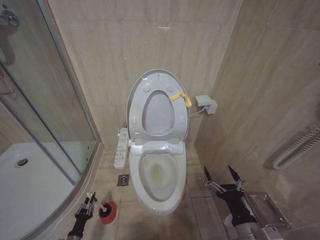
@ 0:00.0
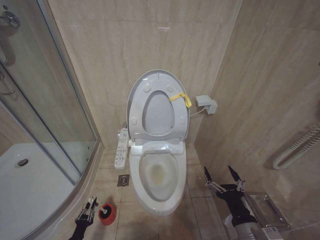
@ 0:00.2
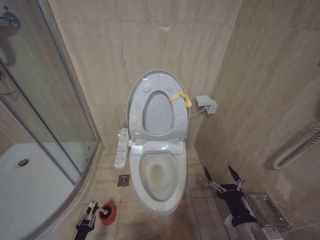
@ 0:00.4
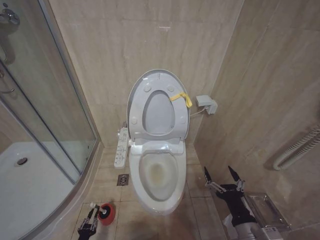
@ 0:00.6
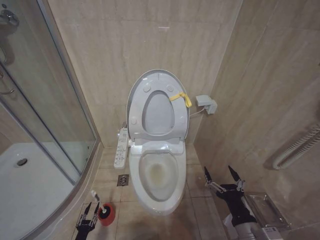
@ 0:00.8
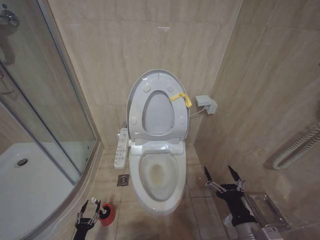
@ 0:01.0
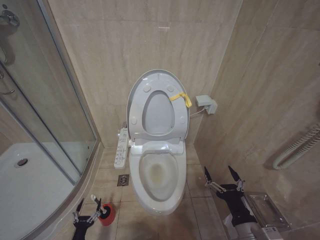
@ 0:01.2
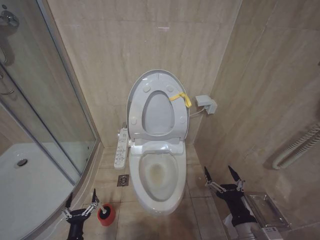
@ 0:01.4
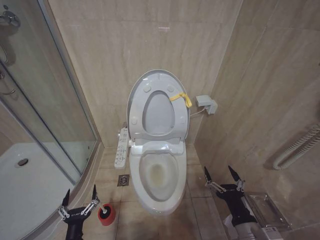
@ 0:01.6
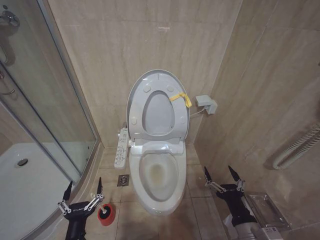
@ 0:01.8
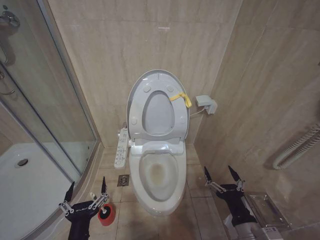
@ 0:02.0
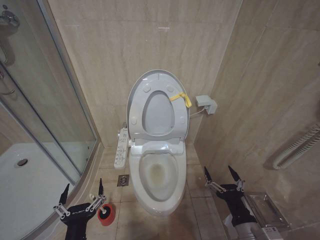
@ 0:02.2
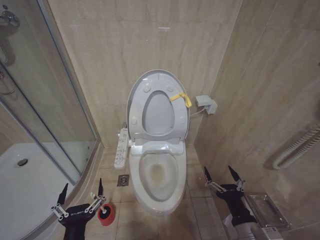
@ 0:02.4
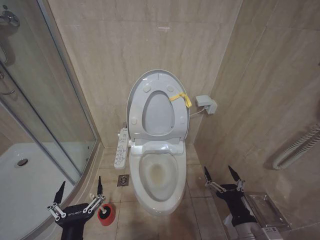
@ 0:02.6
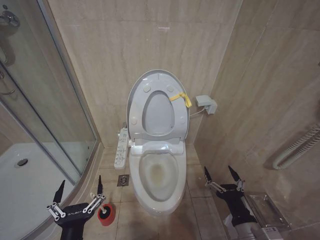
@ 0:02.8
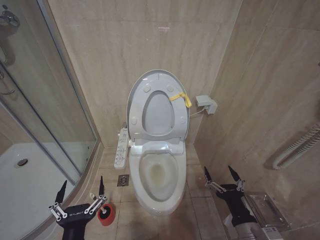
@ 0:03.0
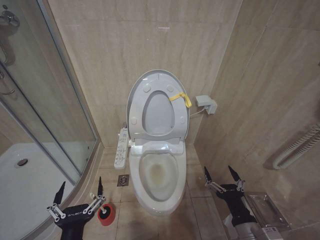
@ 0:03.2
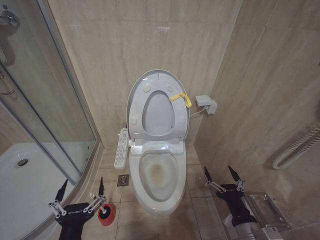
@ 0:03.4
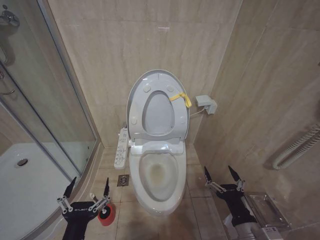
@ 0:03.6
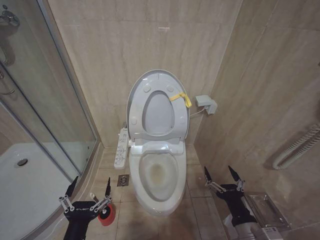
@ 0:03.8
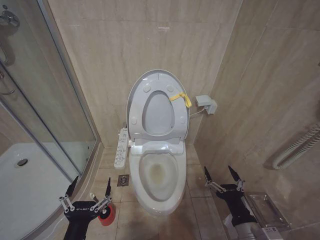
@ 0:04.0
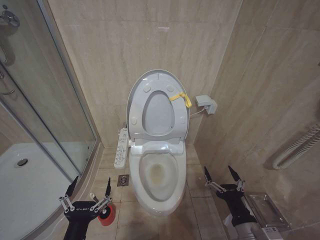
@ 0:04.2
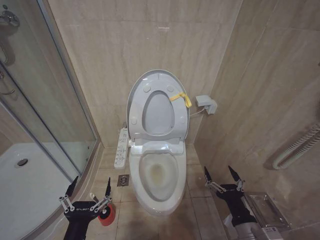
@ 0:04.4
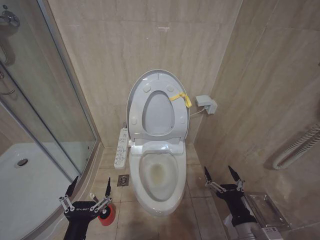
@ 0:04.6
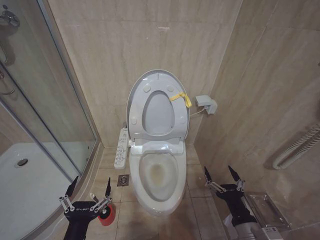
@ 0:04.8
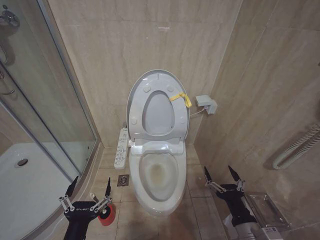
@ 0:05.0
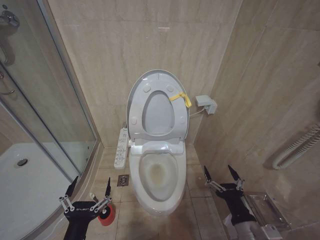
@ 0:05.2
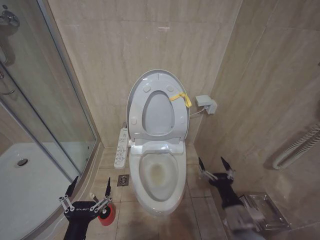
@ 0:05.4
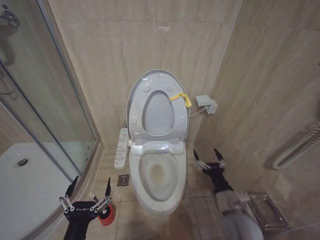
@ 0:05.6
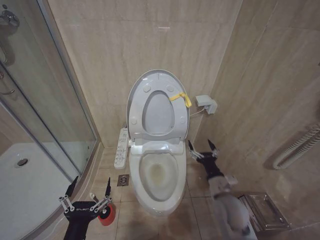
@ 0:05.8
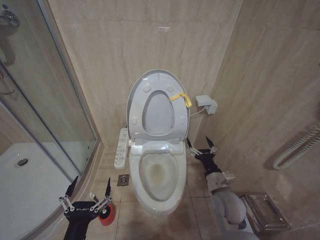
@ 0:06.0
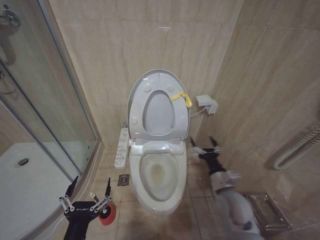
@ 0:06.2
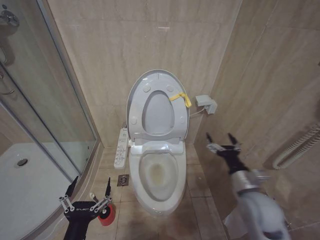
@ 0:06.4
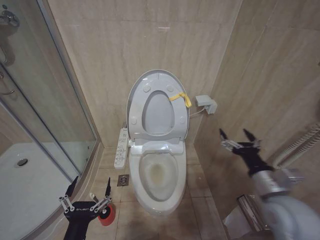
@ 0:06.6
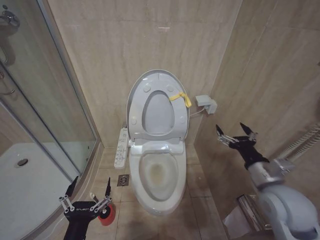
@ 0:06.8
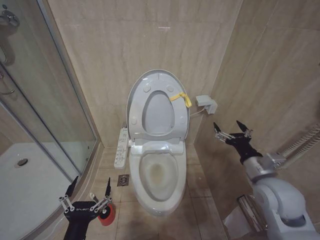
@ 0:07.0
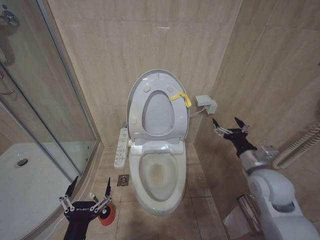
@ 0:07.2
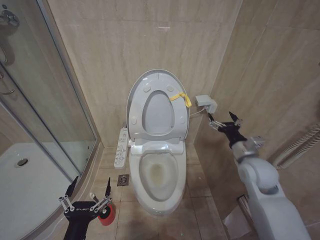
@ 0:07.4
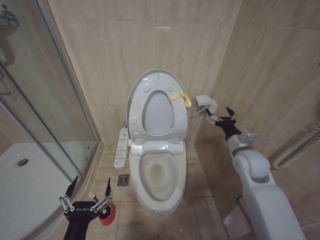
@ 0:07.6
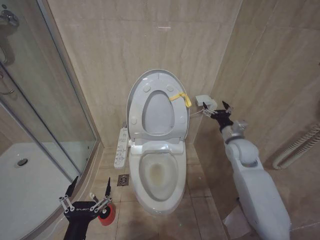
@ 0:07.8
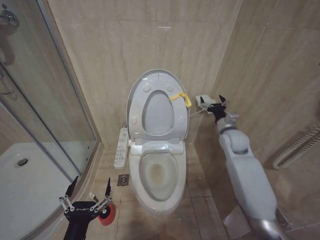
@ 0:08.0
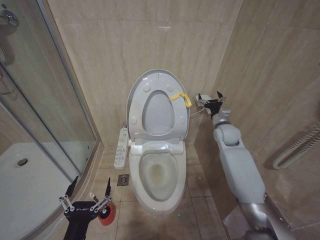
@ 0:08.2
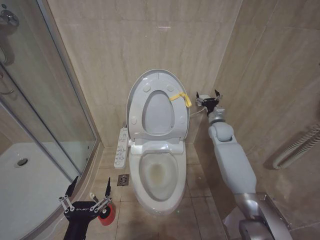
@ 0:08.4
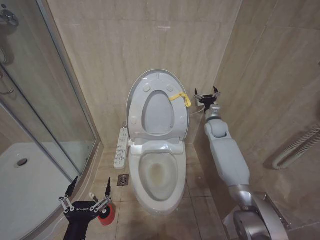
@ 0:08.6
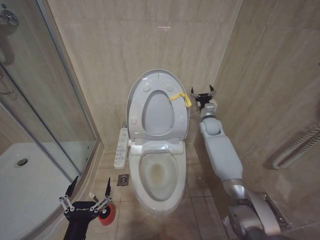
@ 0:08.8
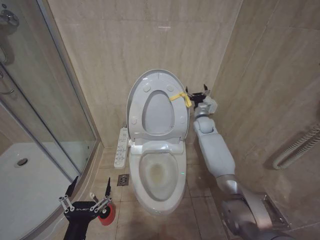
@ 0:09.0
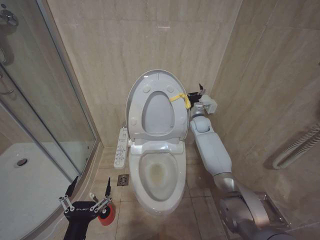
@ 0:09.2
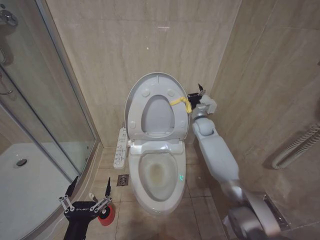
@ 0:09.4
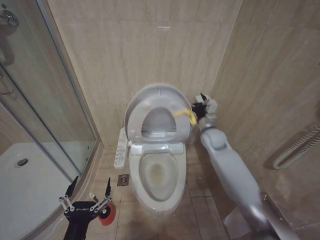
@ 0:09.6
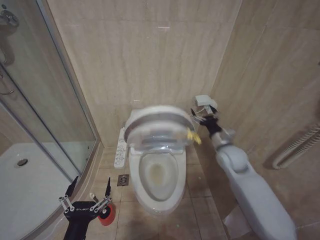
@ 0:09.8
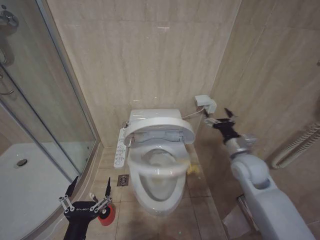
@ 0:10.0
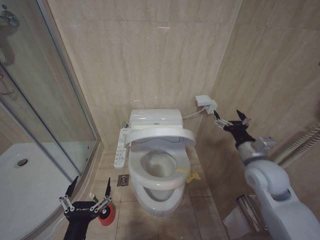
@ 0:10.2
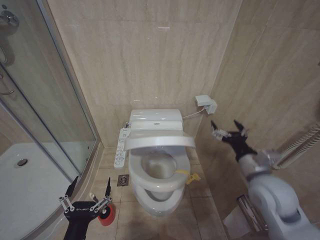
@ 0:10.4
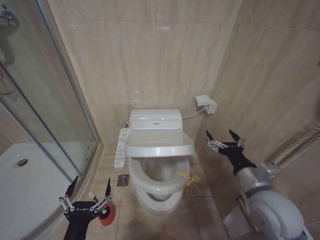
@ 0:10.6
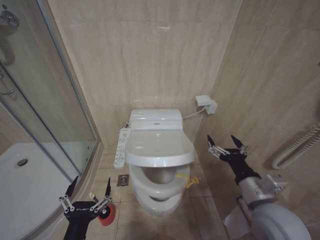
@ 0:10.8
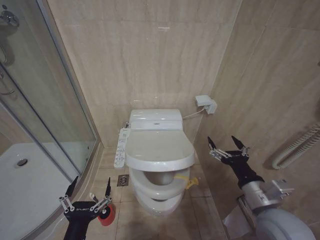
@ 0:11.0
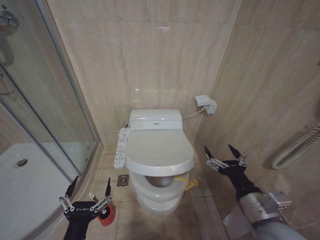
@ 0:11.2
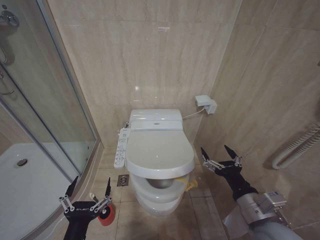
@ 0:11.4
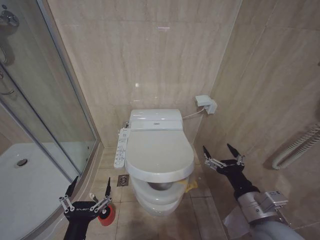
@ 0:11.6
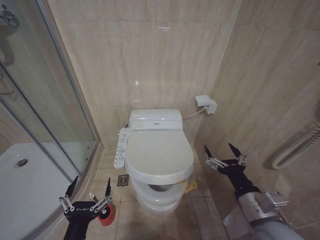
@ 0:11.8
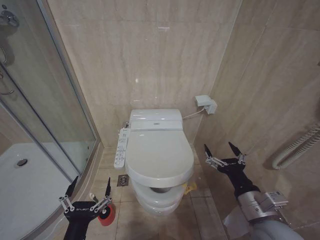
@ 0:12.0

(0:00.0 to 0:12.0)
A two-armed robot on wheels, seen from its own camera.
Task of the whole recording: Open the toilet lid, clean the toilet bowl with a toilet brush, close the toilet lid, and flush.
0:00.0 - 0:01.6: The left gripper is displaced upward, to the right and backward by roughly 20 cm, and opens its fingers.
0:01.6 - 0:03.0: The left gripper goes approximately 20 cm upward and to the right.
0:03.0 - 0:04.4: The grippers make only small movements.
0:04.4 - 0:06.0: The right gripper goes approximately 15 cm forward.
0:06.0 - 0:07.6: The right gripper shifts roughly 15 cm upward, to the right and forward.
0:07.6 - 0:09.0: The right gripper is displaced forward by about 25 cm.
0:09.0 - 0:10.4: The right gripper heads backward, covering roughly 30 cm.
0:10.4 - 0:12.0: The right gripper heads backward, covering approximately 10 cm.

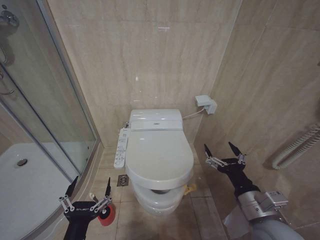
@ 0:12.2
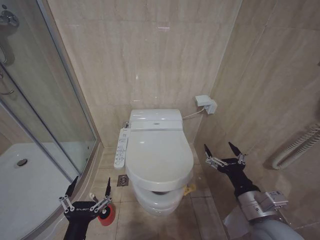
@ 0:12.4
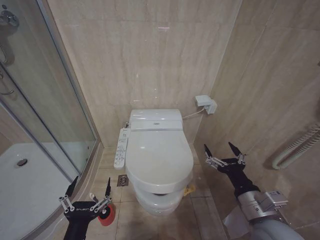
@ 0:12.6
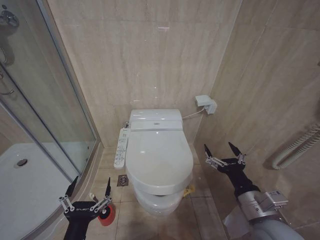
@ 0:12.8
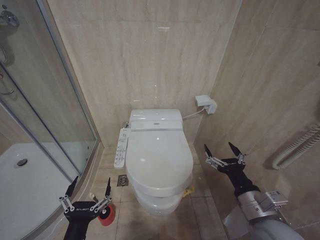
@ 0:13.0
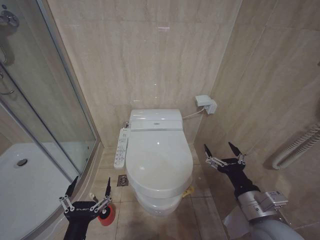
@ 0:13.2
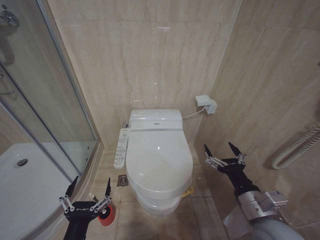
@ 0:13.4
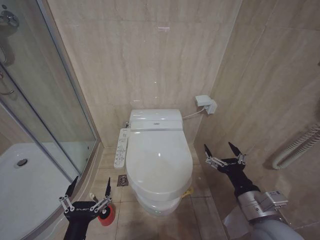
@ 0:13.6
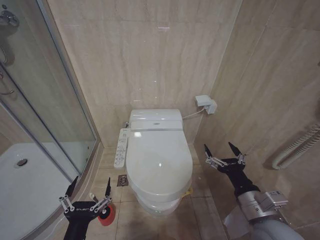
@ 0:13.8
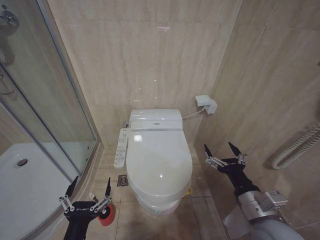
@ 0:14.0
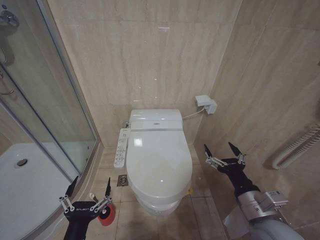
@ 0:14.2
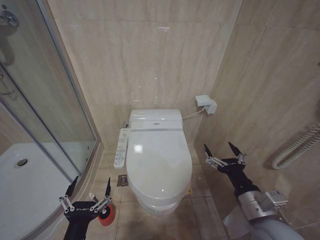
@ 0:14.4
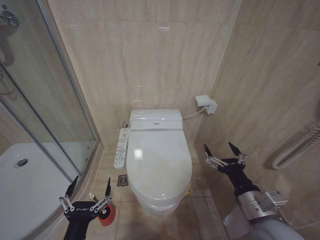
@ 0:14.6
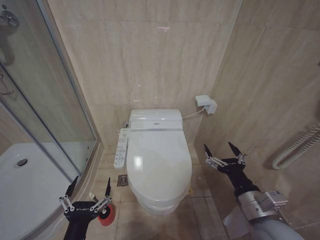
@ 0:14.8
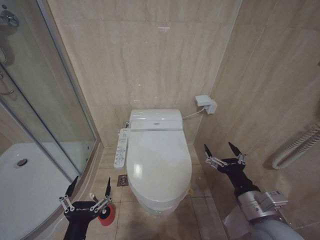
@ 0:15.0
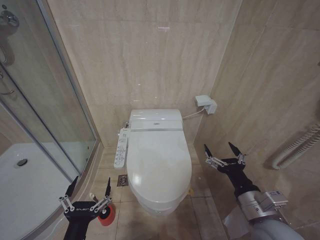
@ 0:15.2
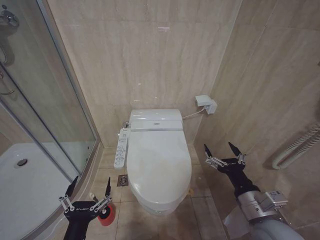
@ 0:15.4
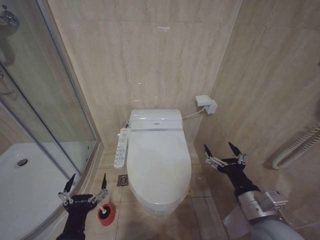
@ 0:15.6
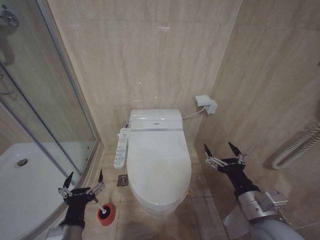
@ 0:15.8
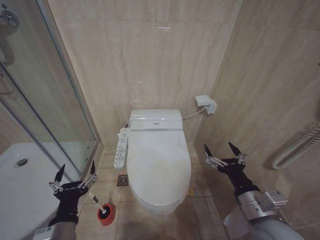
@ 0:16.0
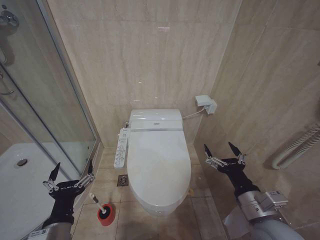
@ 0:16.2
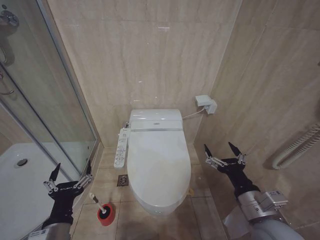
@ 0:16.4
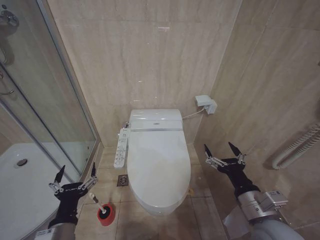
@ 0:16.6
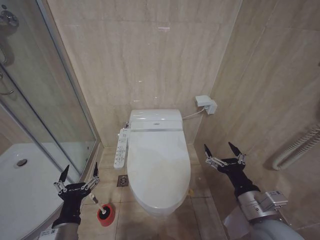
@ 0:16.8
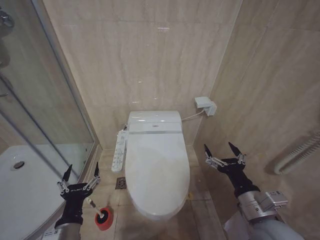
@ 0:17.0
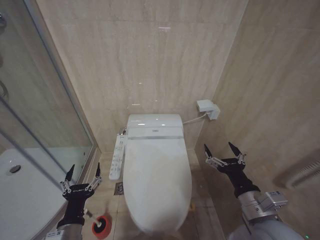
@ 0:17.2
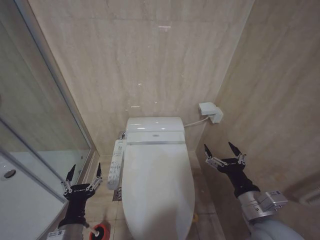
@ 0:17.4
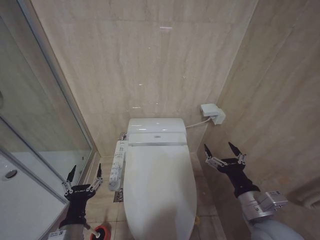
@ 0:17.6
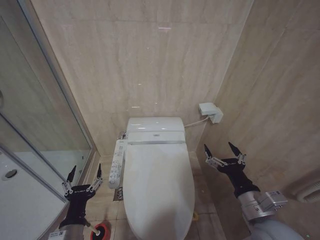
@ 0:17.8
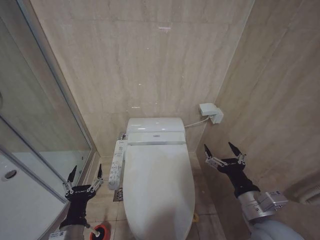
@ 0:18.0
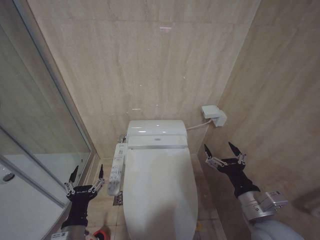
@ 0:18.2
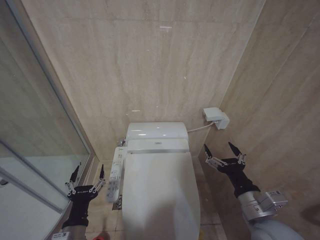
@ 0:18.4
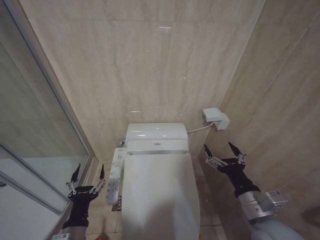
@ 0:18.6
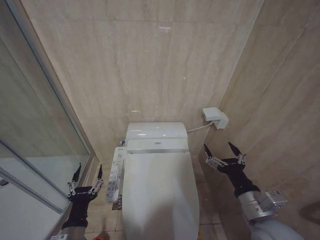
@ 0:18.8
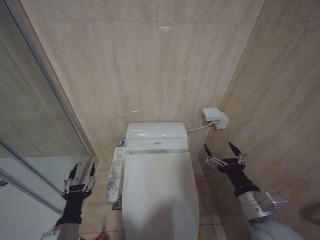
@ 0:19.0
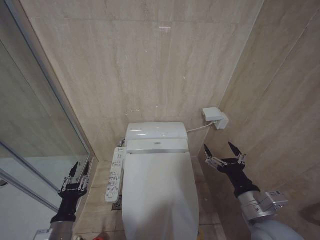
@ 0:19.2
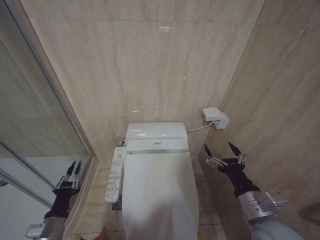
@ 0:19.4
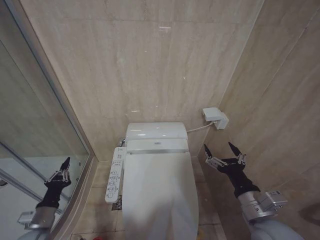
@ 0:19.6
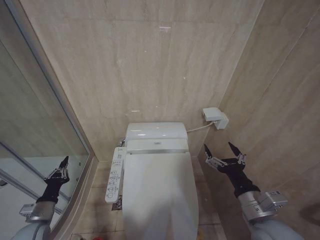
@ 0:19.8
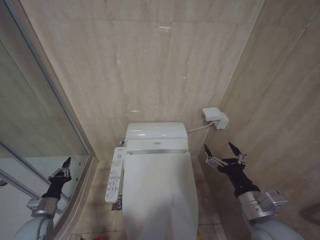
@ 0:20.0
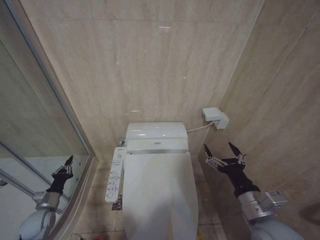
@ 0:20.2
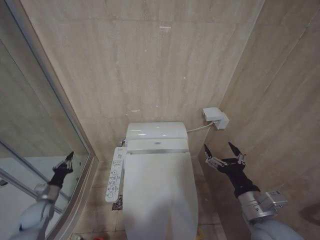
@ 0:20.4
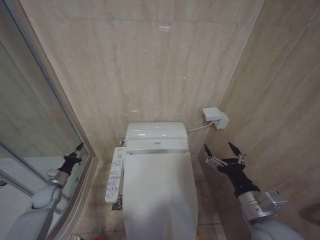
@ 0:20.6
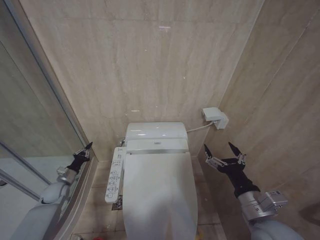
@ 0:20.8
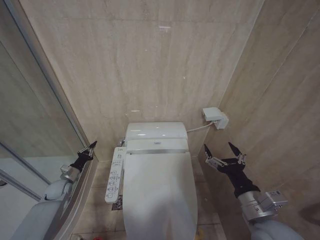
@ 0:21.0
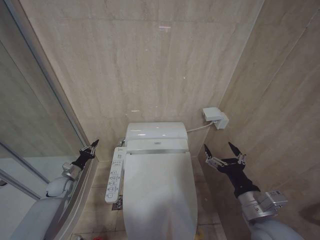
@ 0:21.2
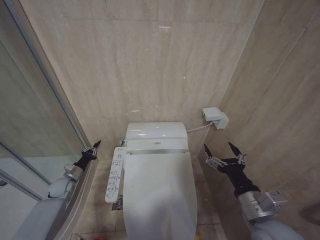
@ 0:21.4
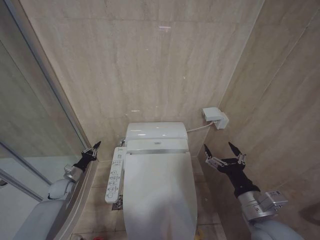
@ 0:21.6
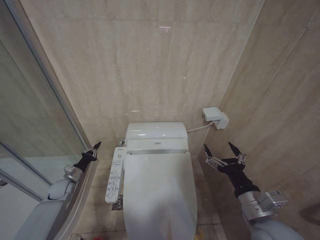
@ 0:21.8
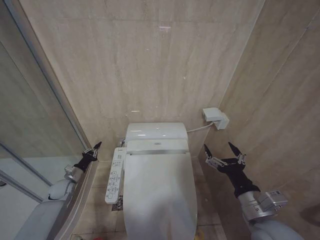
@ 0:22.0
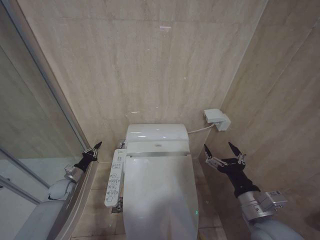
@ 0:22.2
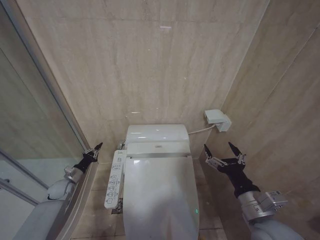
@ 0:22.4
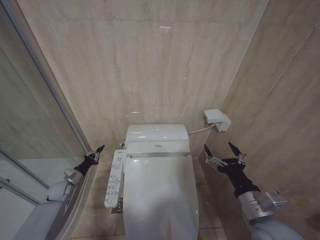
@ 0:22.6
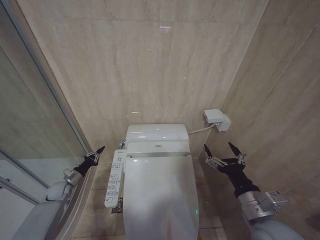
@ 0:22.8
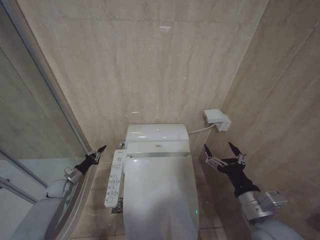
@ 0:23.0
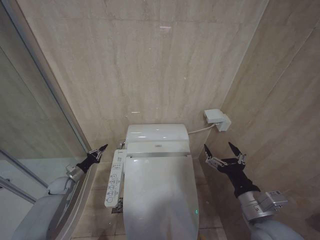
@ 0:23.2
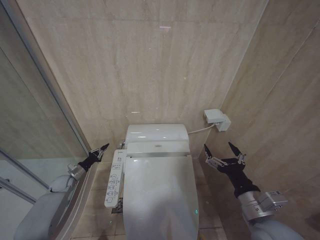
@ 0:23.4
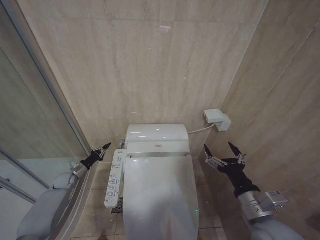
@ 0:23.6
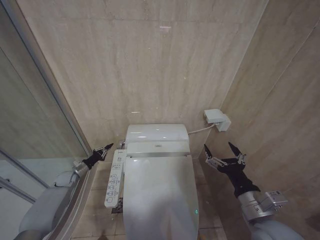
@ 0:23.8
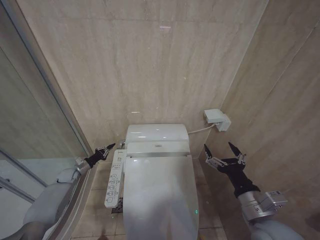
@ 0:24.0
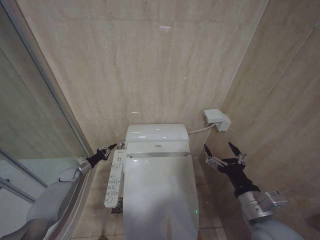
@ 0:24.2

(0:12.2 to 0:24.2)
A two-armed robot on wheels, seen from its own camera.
Task of the whole recording: Open the toilet lid, clean the toilet bowl with a toilet brush, close the toilet lid, and flush.
0:12.2 - 0:15.2: Both grippers stay about where they are.
0:15.2 - 0:16.6: The left gripper shifts roughly 5 cm forward.
0:16.6 - 0:18.2: There are only small adjustments of the grippers.
0:18.2 - 0:19.8: The left gripper travels to the left, forward and downward by approximately 20 cm, and closes up.
0:19.8 - 0:21.2: The left gripper shifts some 20 cm forward.
0:21.2 - 0:22.6: The grippers make only small movements.
0:22.6 - 0:24.2: The left gripper shifts roughly 5 cm forward.
